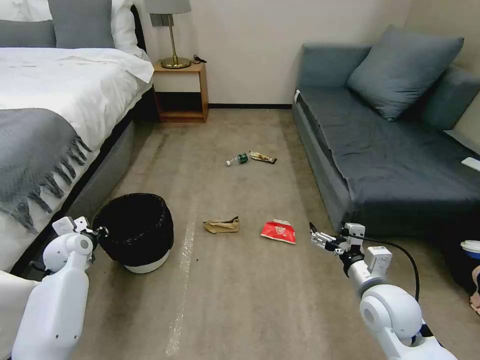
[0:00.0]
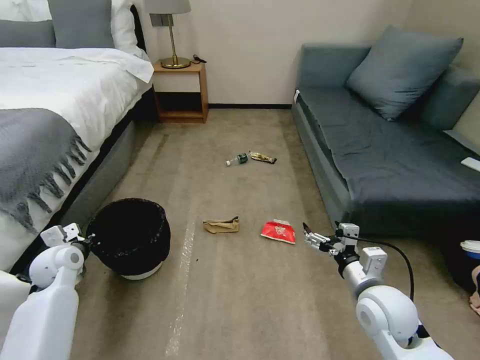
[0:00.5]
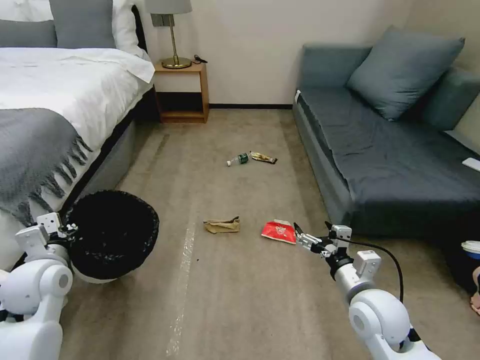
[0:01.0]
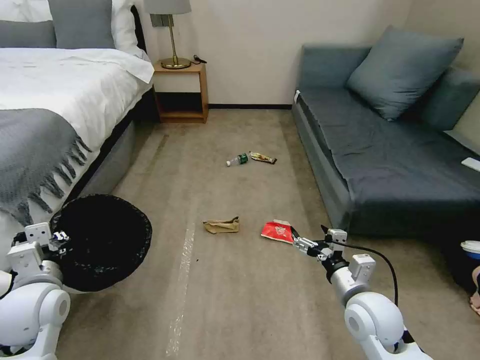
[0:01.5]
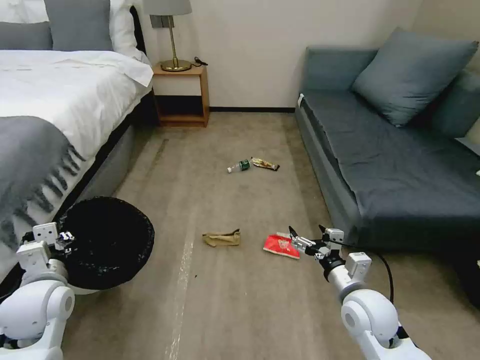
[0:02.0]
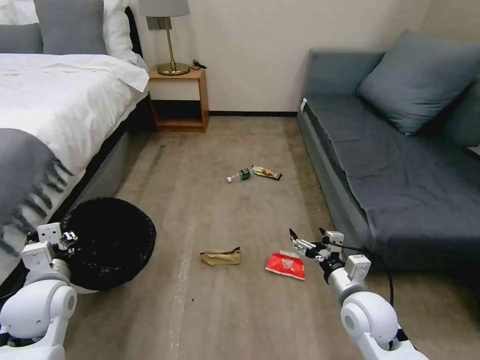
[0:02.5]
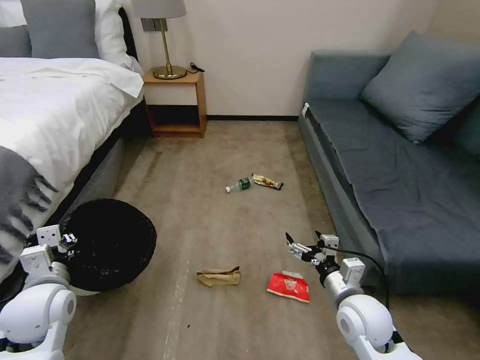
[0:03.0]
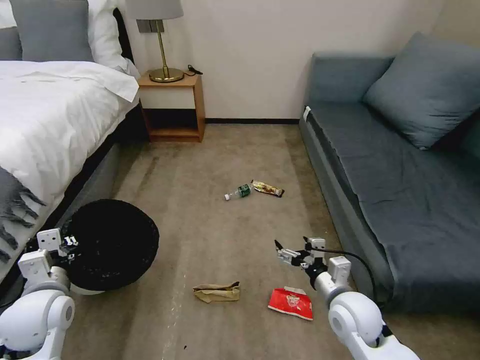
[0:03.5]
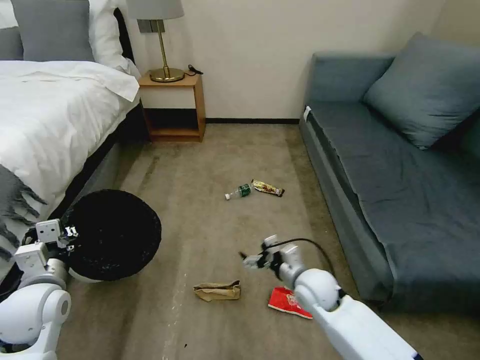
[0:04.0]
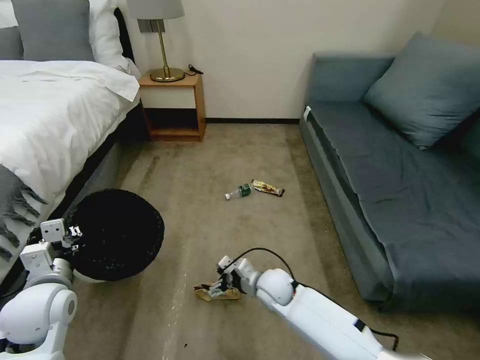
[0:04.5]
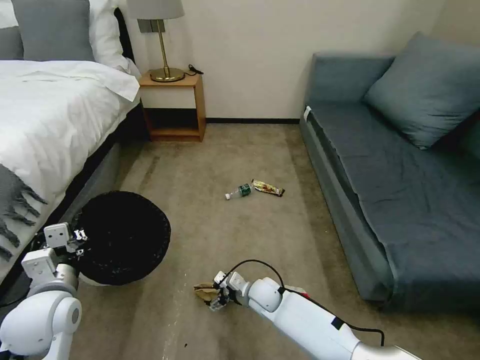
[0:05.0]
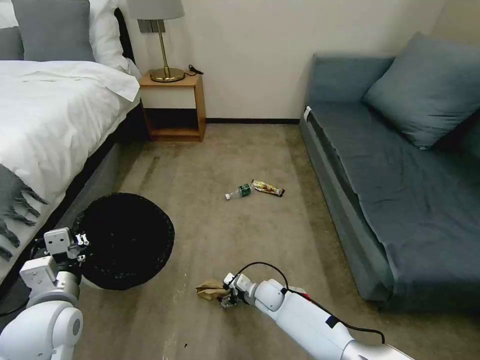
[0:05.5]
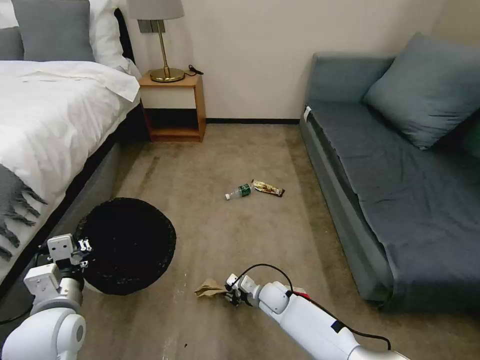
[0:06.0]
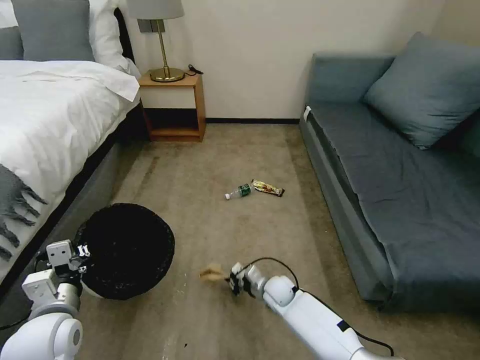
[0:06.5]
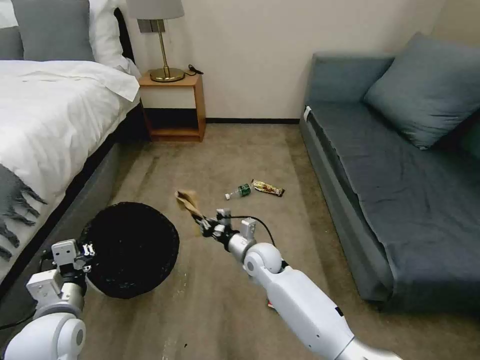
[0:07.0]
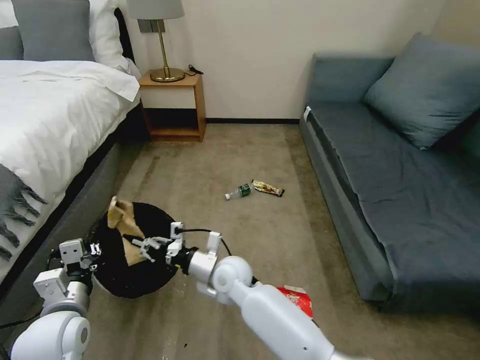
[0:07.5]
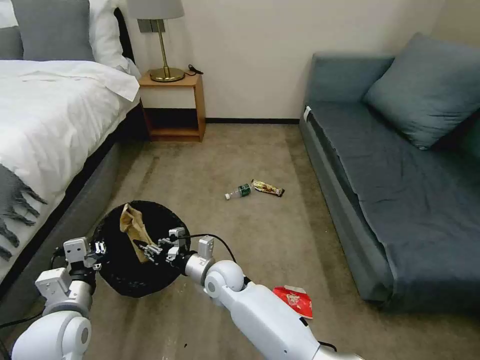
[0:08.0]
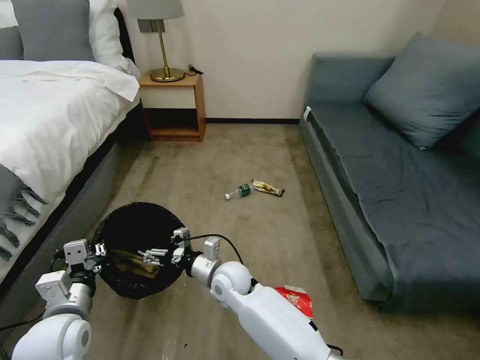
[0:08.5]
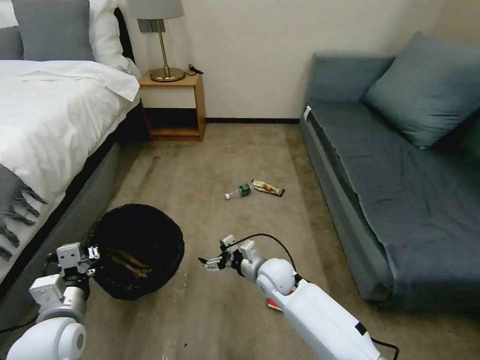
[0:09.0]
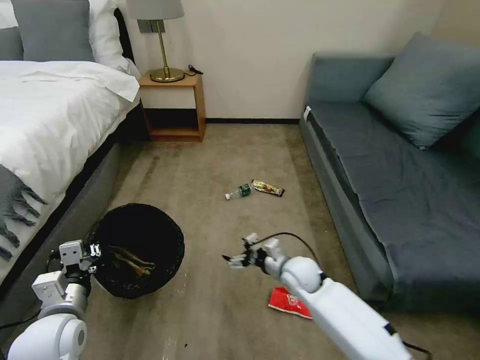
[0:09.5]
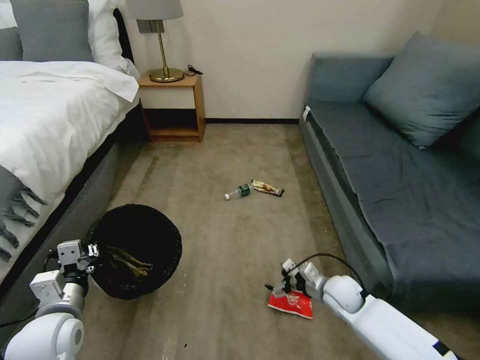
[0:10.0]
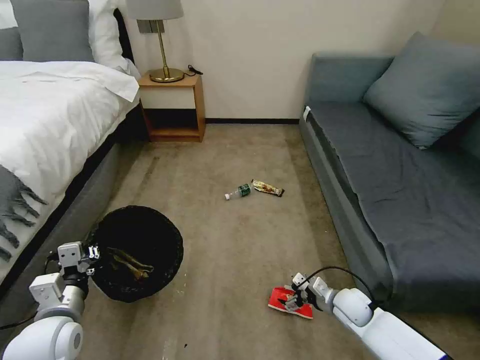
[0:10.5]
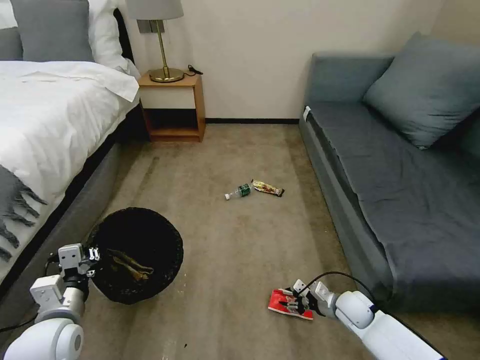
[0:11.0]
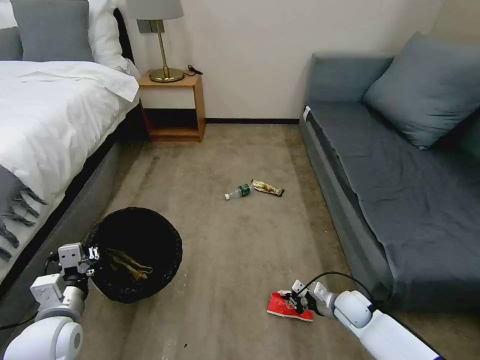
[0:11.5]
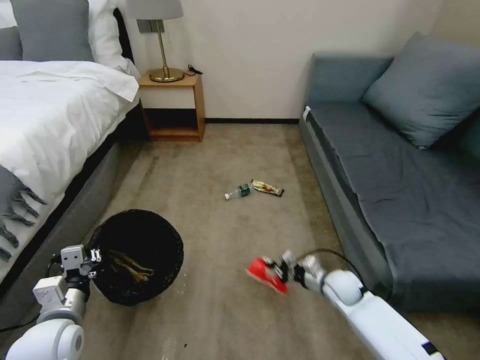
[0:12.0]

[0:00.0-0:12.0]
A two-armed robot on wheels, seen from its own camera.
Task of the whole recording: Pick up the trash bin, then pick up the garbage on the floor and place it into the trash bin.
0:00.0 to 0:02.0: The left gripper heads backward, upward and to the right, covering about 20 cm.
0:02.0 to 0:04.0: The right gripper moves to the left and forward, some 10 cm.
0:04.0 to 0:06.0: The left gripper moves roughly 5 cm. Meanwhile the right gripper is displaced downward and to the left by roughly 20 cm, and closes its fingers.
0:06.0 to 0:08.0: The right gripper travels upward and to the left by some 20 cm.
0:08.0 to 0:10.0: The right gripper goes about 30 cm to the right, and opens.
0:10.0 to 0:12.0: The right gripper closes its fingers.

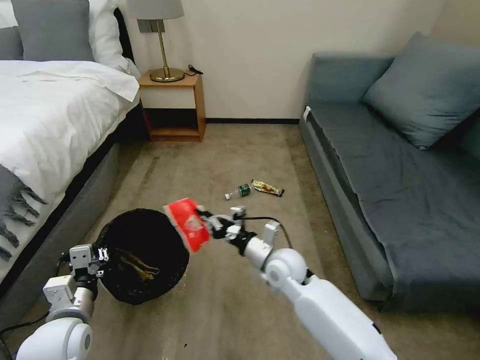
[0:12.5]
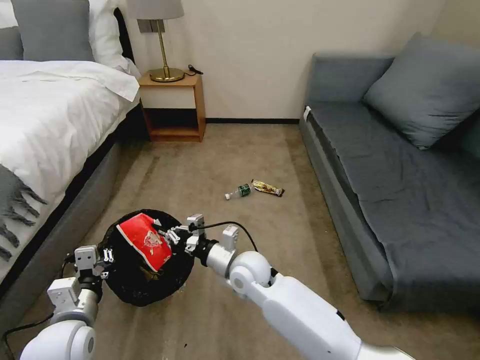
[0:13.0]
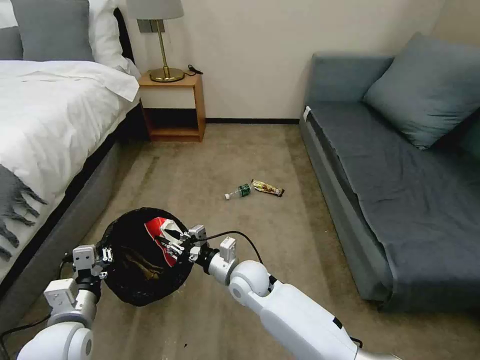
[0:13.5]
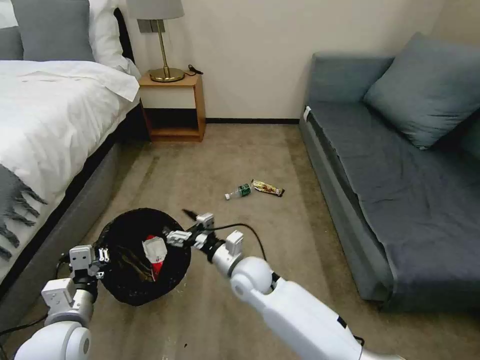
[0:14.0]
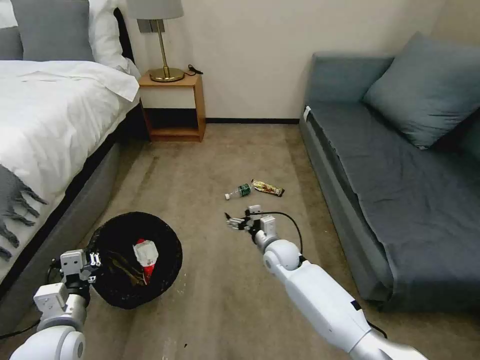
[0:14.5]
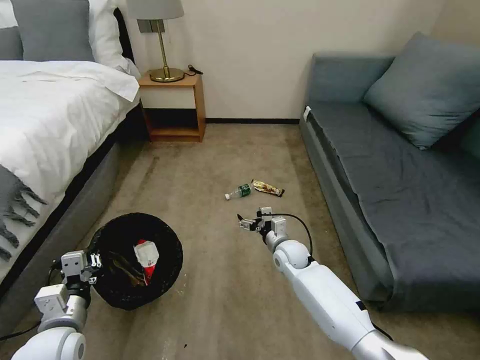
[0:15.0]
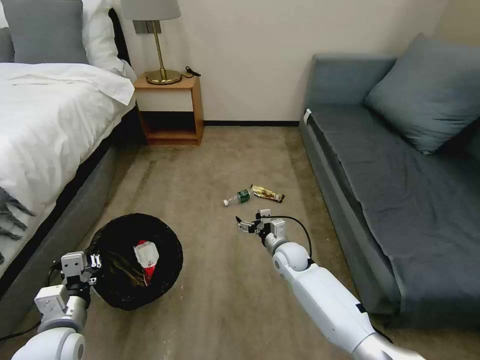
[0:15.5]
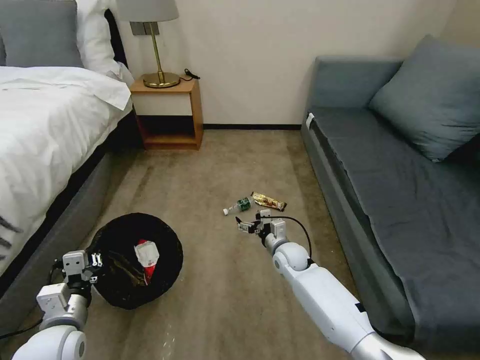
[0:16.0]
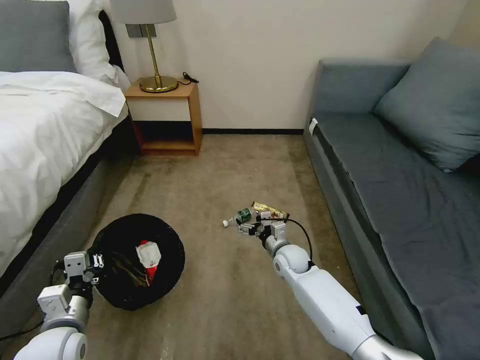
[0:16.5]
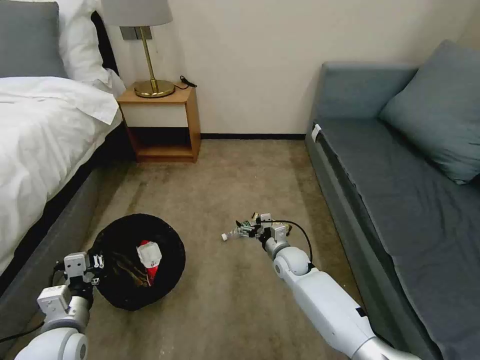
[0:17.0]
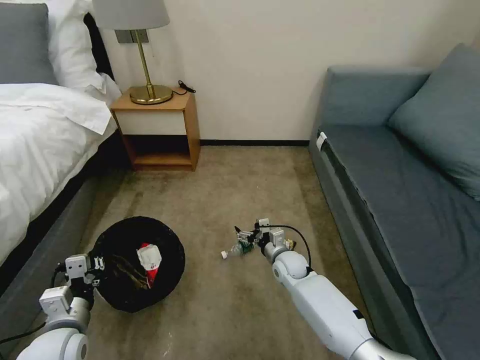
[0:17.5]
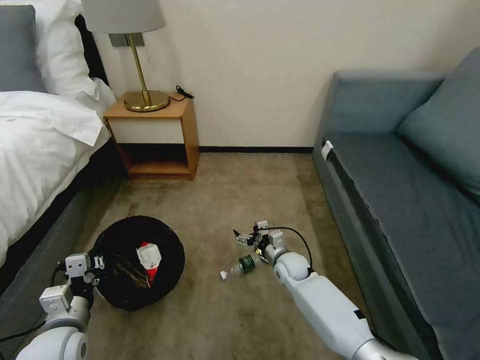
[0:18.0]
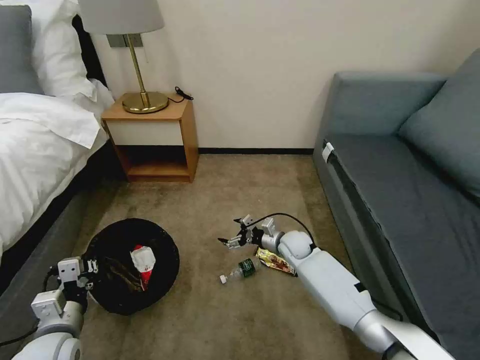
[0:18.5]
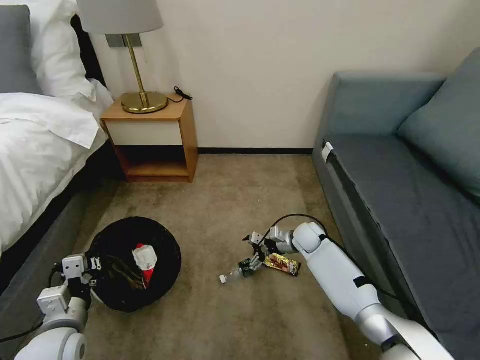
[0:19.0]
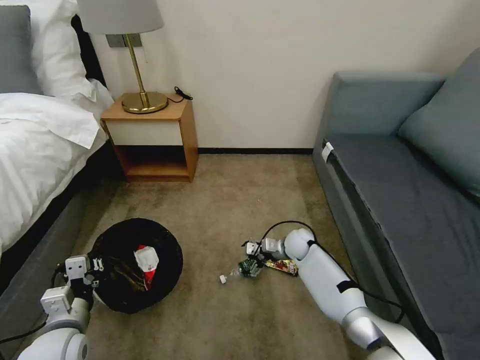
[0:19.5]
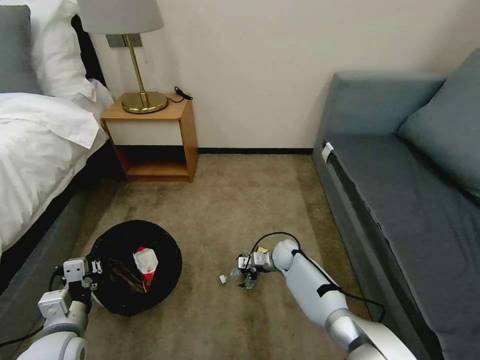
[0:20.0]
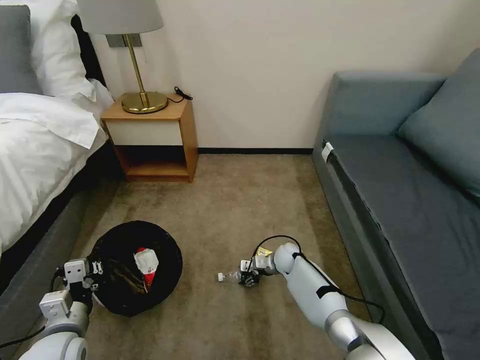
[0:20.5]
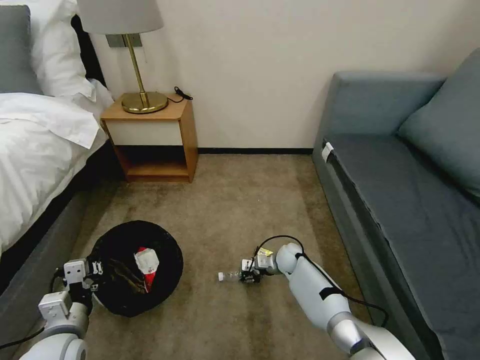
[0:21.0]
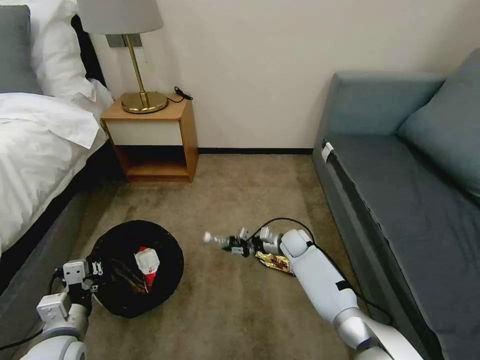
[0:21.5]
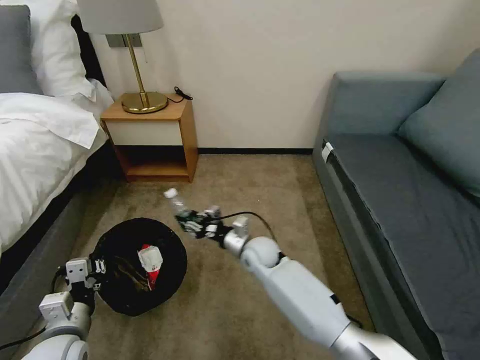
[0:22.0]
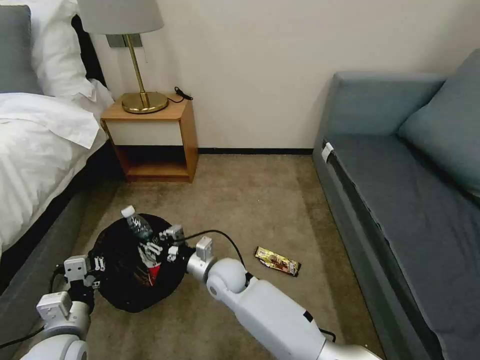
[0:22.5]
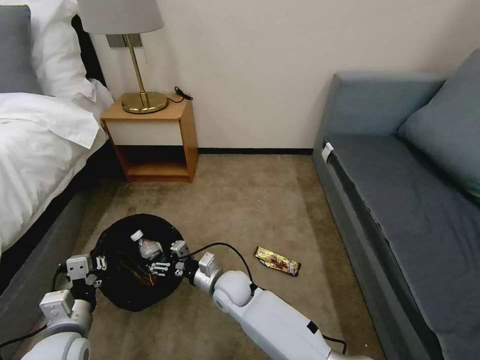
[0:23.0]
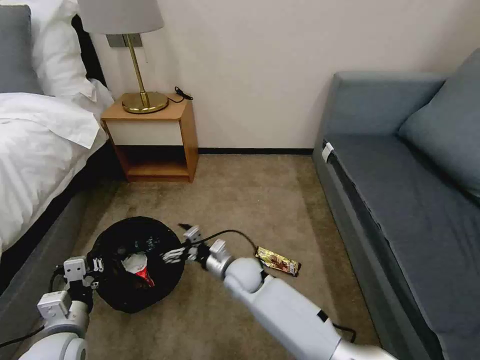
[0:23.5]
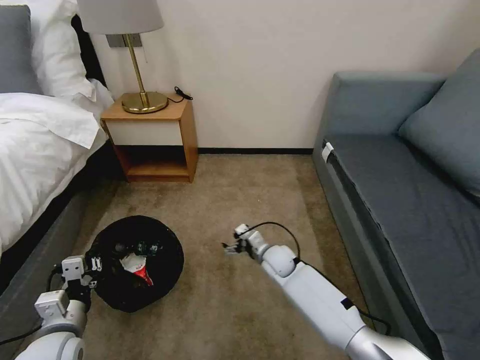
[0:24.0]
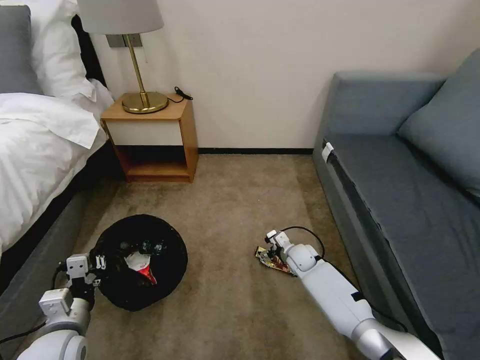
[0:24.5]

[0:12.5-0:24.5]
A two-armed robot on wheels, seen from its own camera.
Task of the whole recording: Pick up the trash bin, then pick up the garbage on the floor and place it into the trash bin.
0:12.5 to 0:14.5: The right gripper goes about 10 cm forward and downward, reaches roughly 10 cm to the left, then returns, and opens up.
0:18.5 to 0:20.5: The right gripper goes about 10 cm downward, and closes up.
0:20.5 to 0:22.5: The right gripper travels to the left, upward and backward by approximately 25 cm.
0:22.5 to 0:24.5: The right gripper travels to the right, downward and forward by approximately 30 cm, and opens.

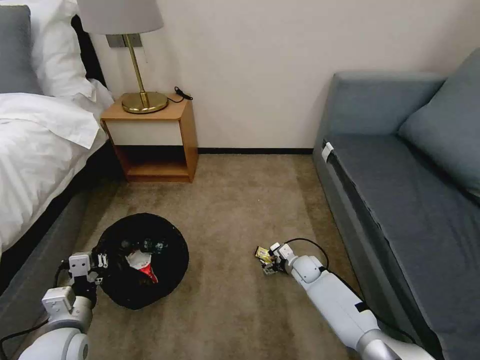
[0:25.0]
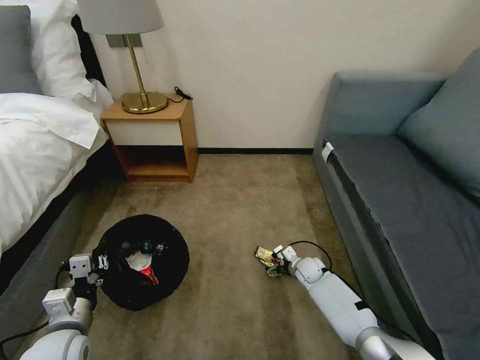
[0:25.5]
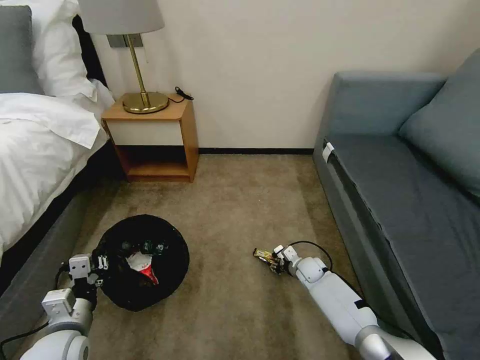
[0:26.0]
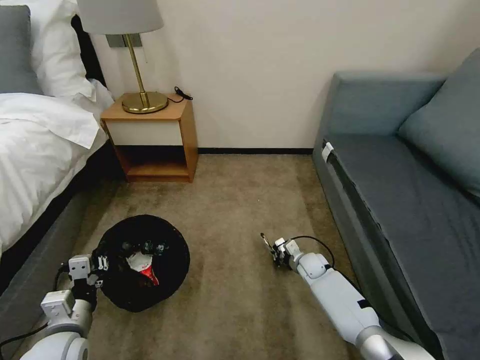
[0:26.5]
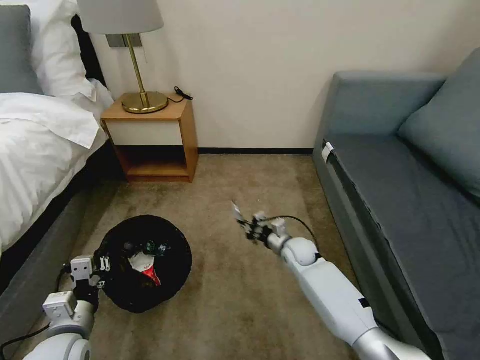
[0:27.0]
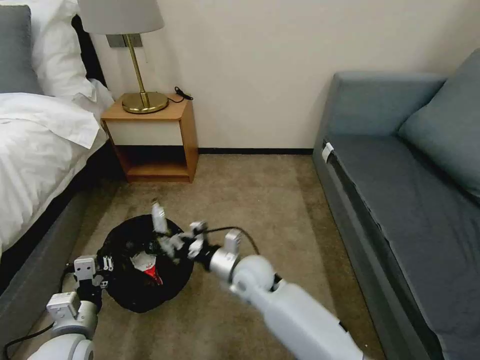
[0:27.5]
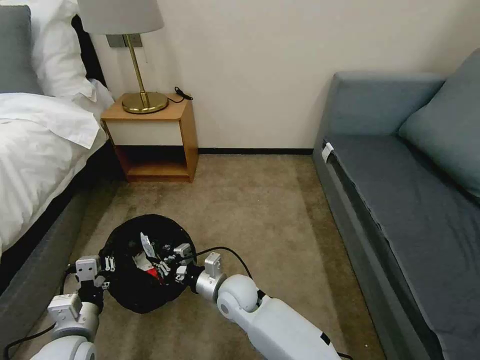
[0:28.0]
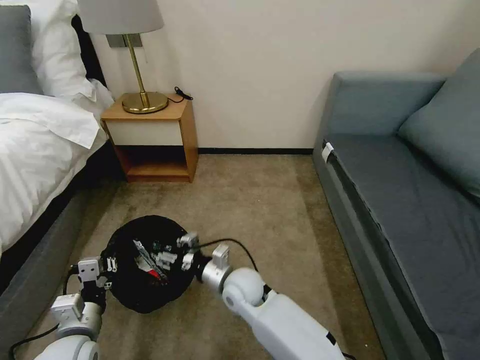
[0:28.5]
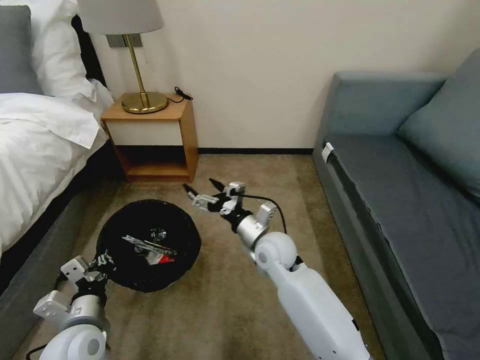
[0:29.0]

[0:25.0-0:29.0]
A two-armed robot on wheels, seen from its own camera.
Task of the whole recording: Pick up the trash bin, then pick up the garbage on the floor and place it into the trash bin.
0:25.0 to 0:27.0: The right gripper heads upward, covering roughly 10 cm, and closes its fingers.
0:27.0 to 0:29.0: The right gripper travels upward, to the left and backward by some 20 cm, and opens up.
